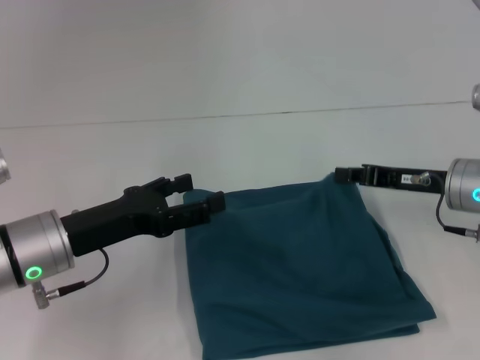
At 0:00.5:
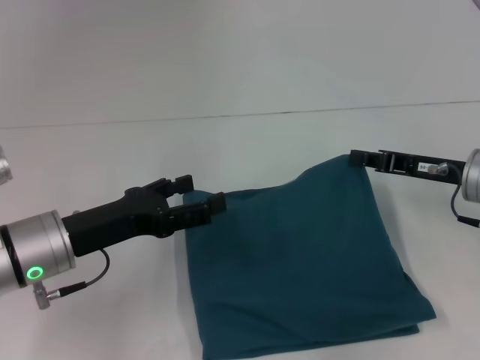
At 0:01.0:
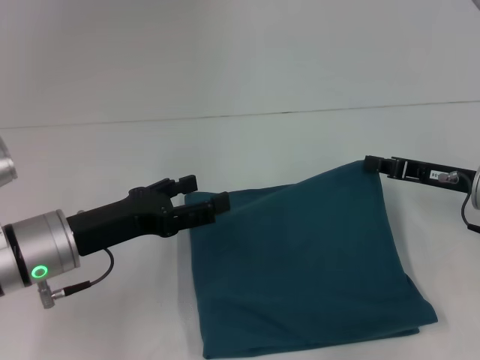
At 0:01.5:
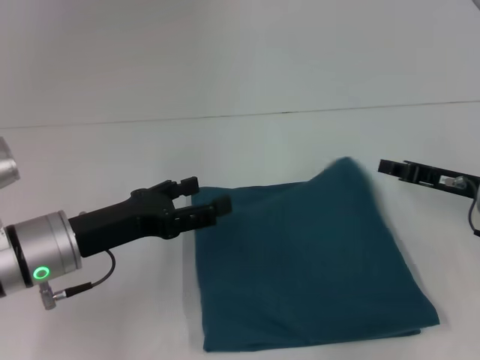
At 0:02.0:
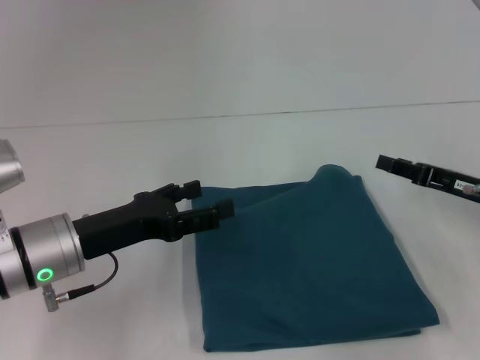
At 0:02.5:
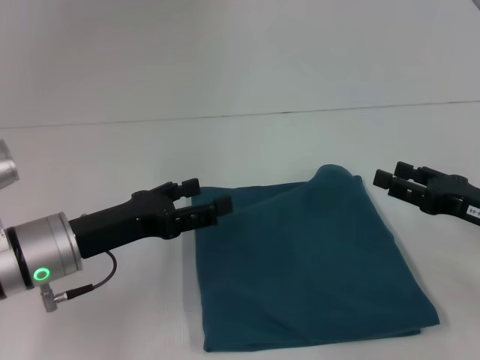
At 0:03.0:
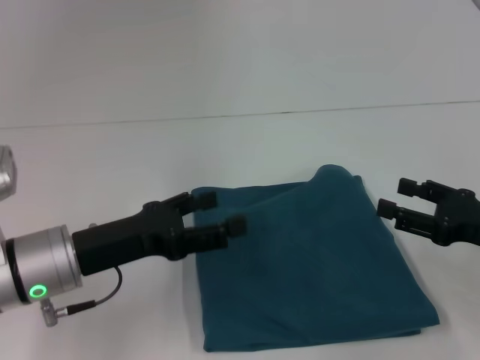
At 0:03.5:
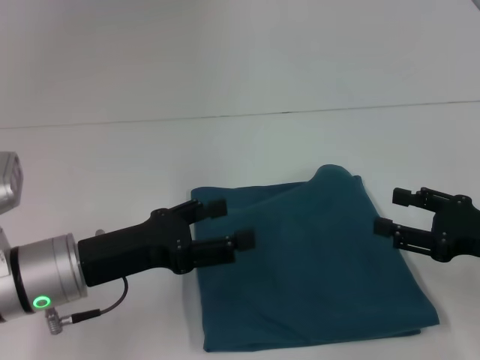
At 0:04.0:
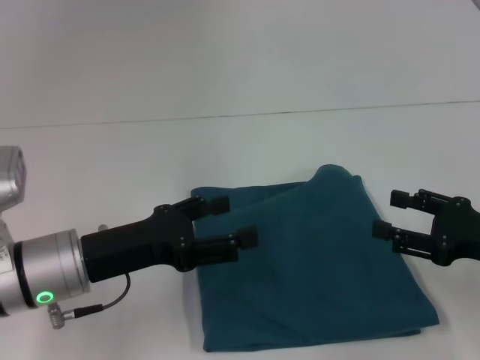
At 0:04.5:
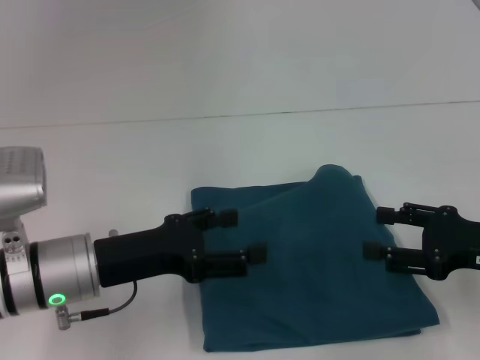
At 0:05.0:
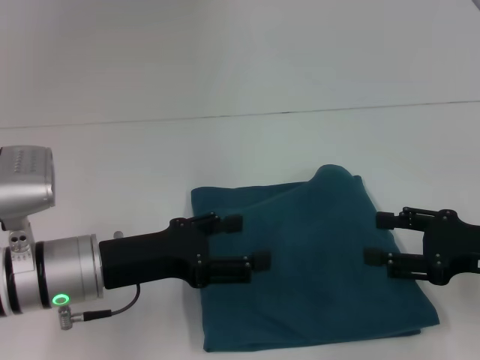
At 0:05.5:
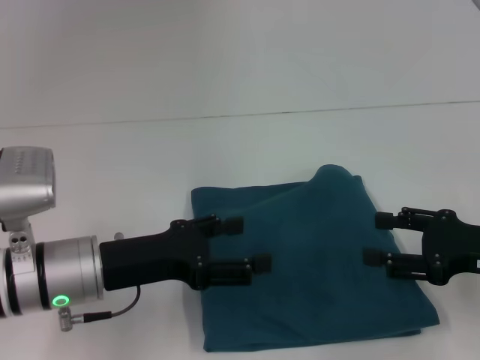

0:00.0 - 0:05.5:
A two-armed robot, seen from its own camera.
0:00.0 - 0:02.0: The right gripper moves approximately 5 cm.
0:02.0 - 0:03.5: The right gripper moves backward, some 5 cm, and opens up.
0:03.5 - 0:05.5: The grippers make only small movements.
